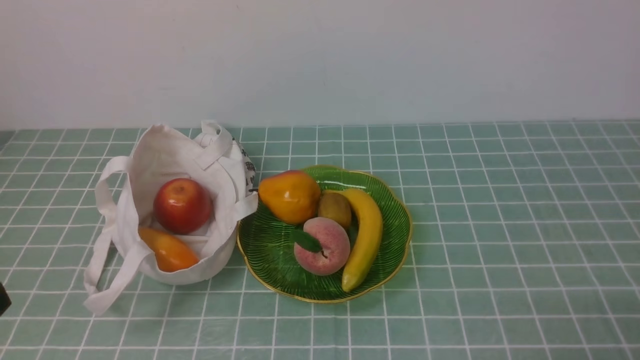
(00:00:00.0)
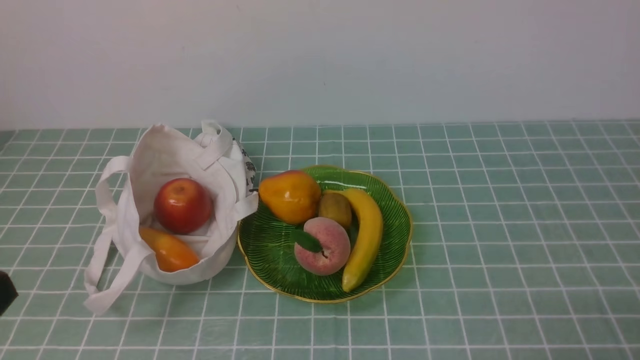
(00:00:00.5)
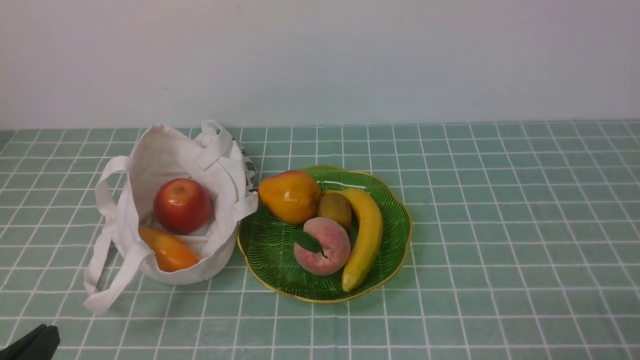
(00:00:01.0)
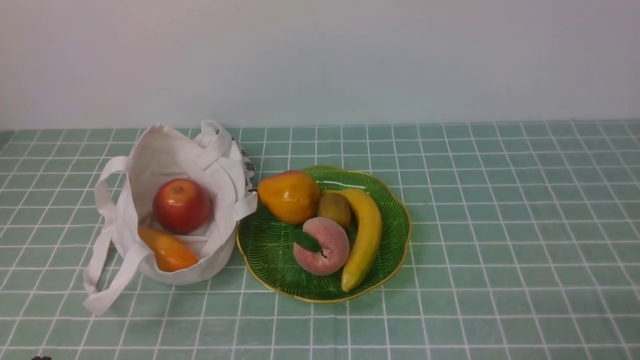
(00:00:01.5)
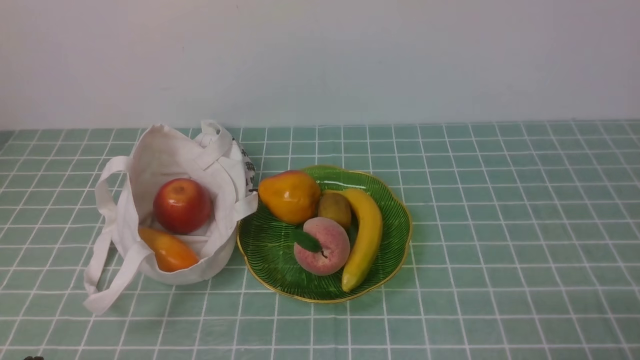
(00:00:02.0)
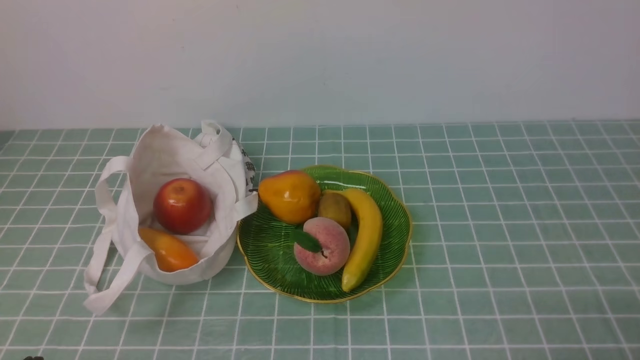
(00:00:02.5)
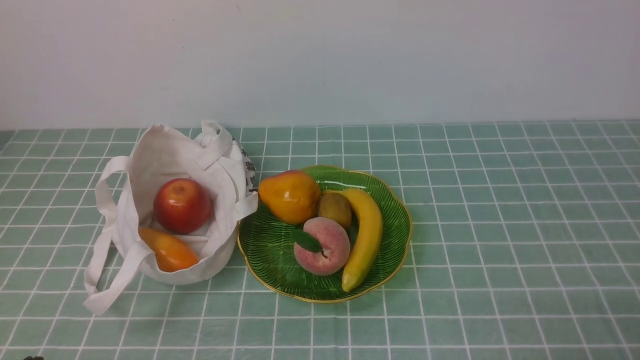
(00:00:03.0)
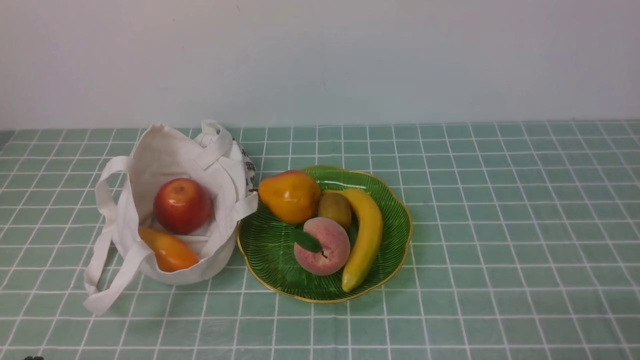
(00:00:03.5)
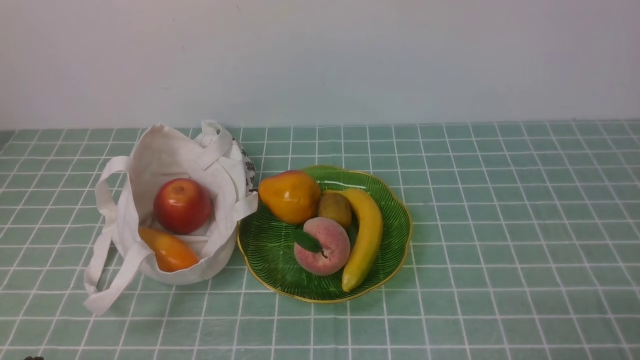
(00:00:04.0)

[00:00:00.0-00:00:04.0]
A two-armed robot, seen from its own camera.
00:00:02.0 to 00:00:04.0: Both grippers stay put.
